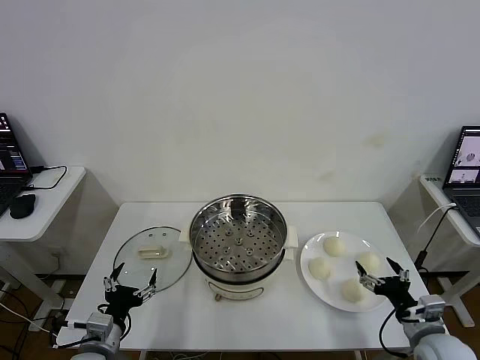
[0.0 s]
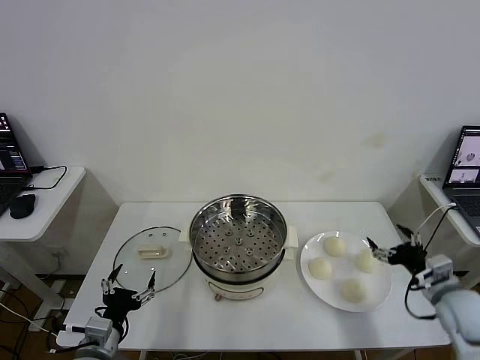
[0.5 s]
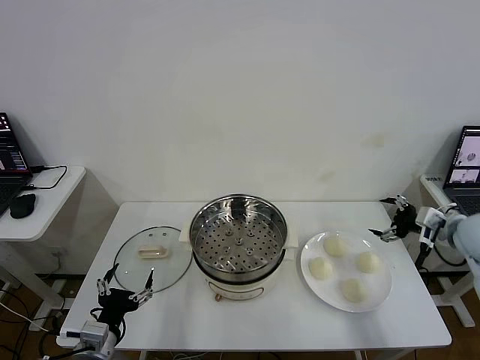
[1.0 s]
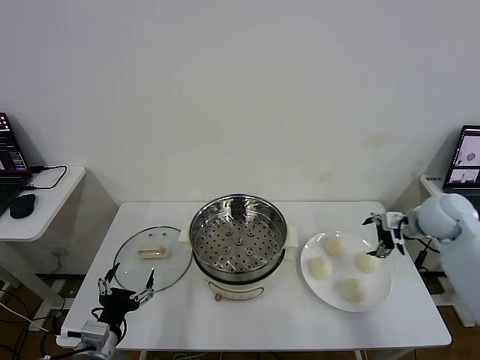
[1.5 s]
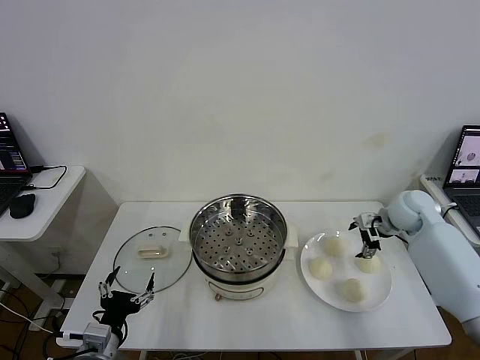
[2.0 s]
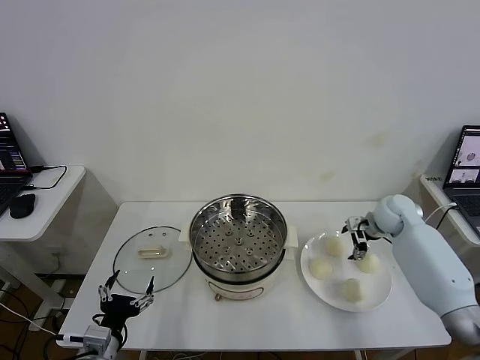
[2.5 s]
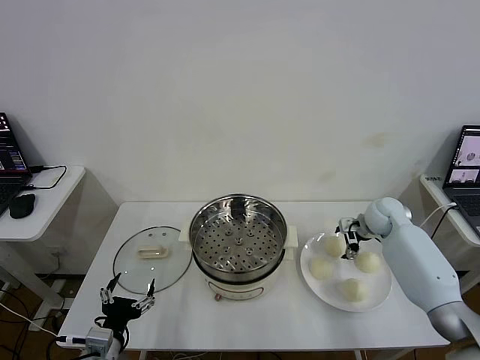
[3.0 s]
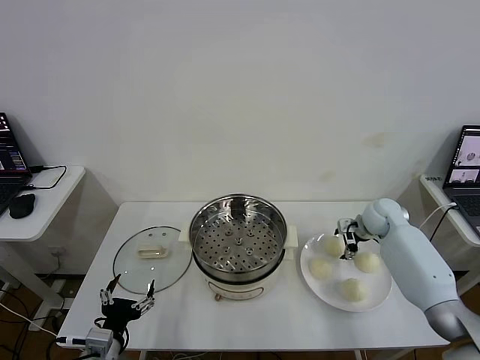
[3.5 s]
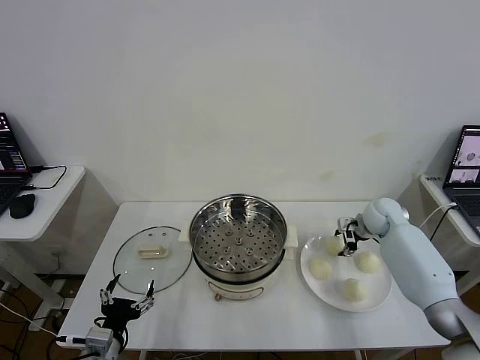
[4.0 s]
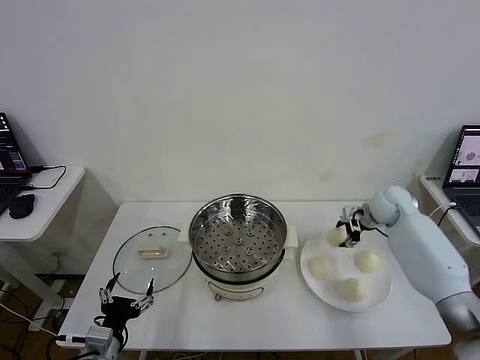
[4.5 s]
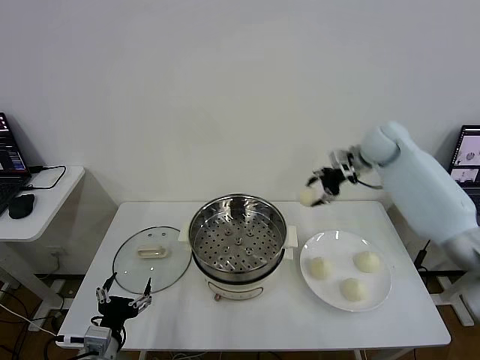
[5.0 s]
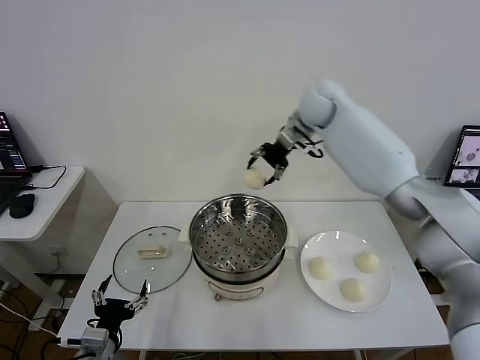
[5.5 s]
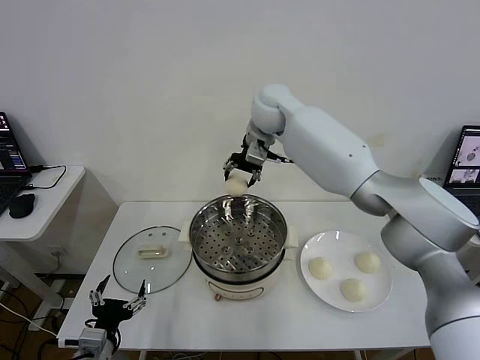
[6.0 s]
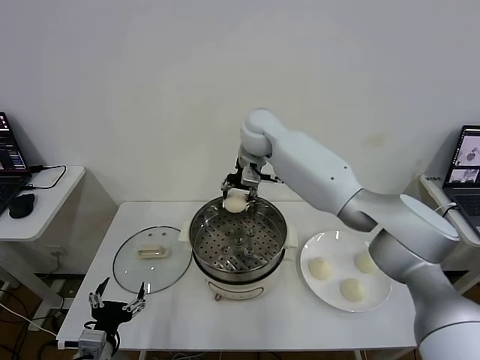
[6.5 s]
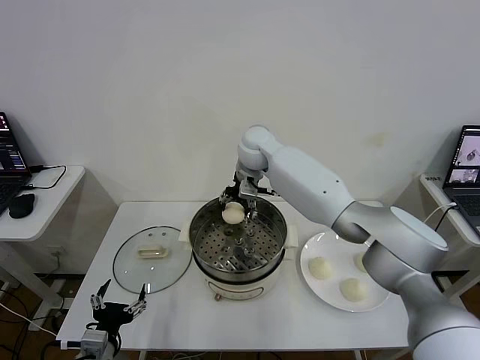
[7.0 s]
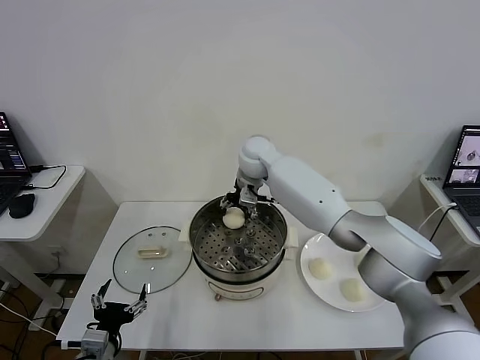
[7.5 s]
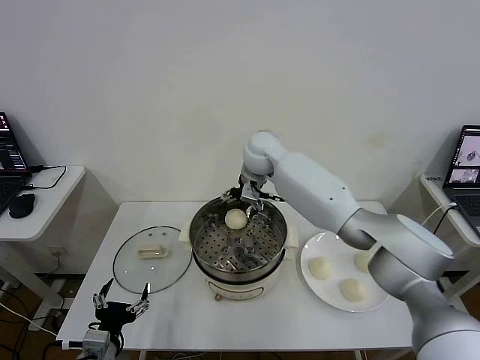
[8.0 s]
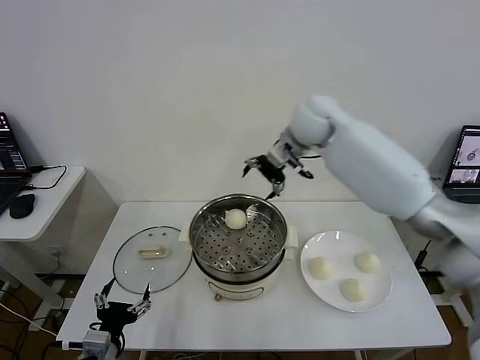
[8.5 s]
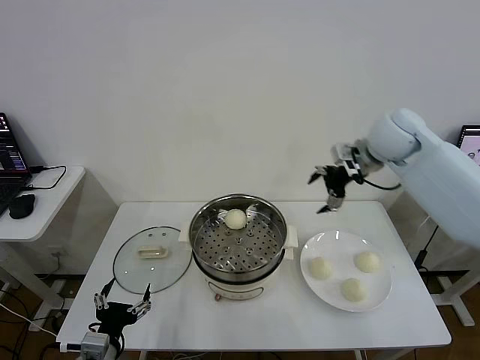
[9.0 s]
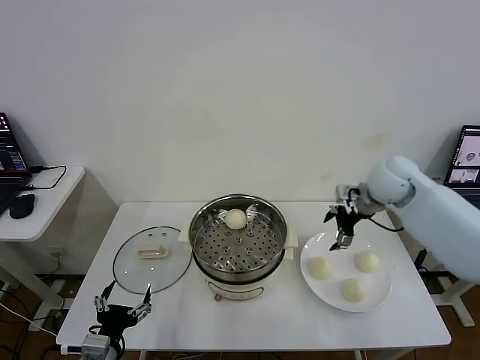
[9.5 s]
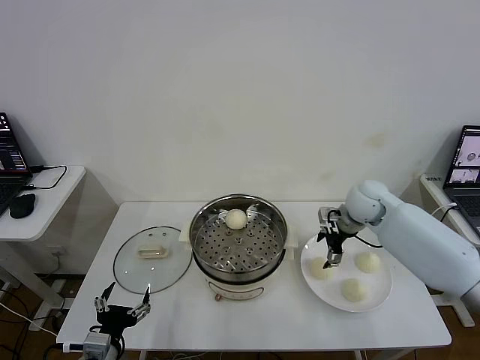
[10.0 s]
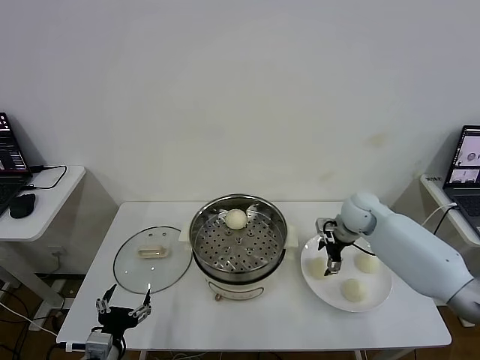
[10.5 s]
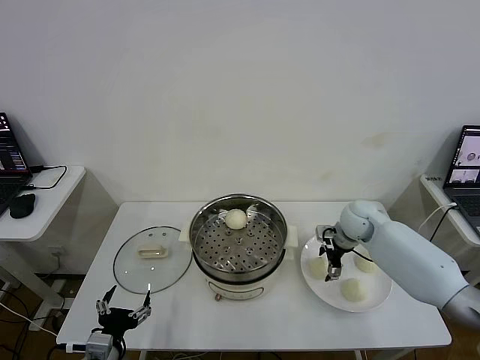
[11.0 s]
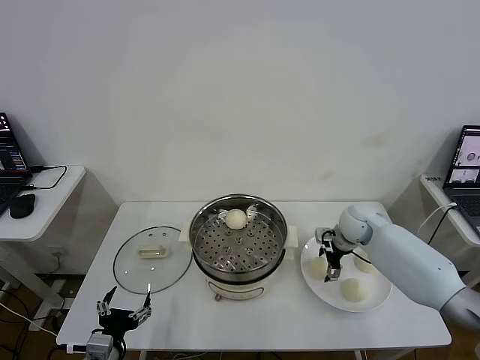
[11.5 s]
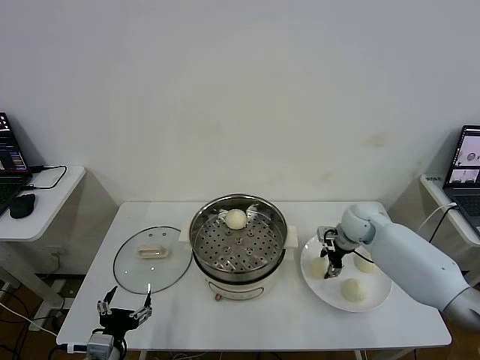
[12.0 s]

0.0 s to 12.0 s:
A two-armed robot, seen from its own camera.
Task of the whole recording: take steamed baozi put them in steamer then cover it.
Step, 0.0 to 3.5 s: Grasp the baozi in the plate with right gripper.
Step, 4.5 to 7.5 s: Place the baozi on the steamer with right gripper.
Step, 8.0 to 12.0 s: Grasp the baozi in the plate with right gripper.
2.0 to 4.0 s: The right gripper moves downward, some 5 cm, and closes up.
4.0 to 6.0 s: The right gripper shifts roughly 40 cm to the left and upward.
6.0 to 8.0 s: The right gripper is displaced downward by approximately 5 cm, and opens its fingers.
8.0 to 10.0 s: The right gripper is displaced to the right and downward by roughly 25 cm.
10.0 to 12.0 s: The right gripper moves downward, about 5 cm, and closes its fingers.

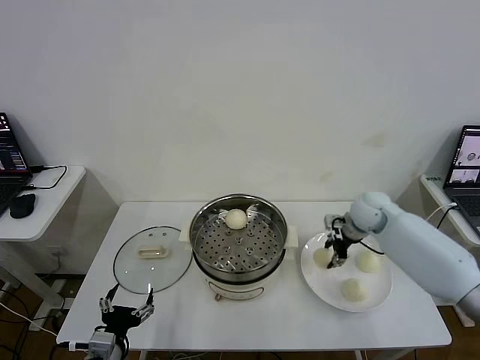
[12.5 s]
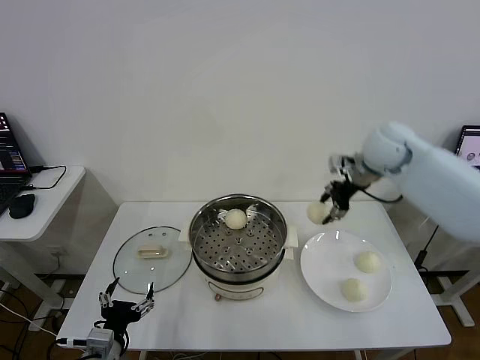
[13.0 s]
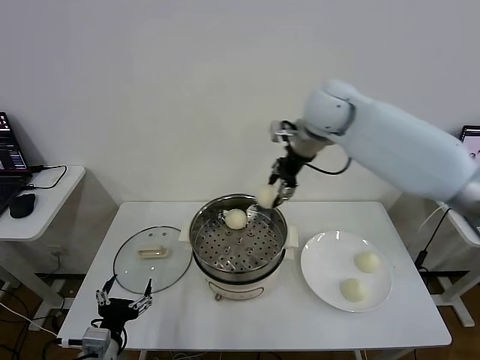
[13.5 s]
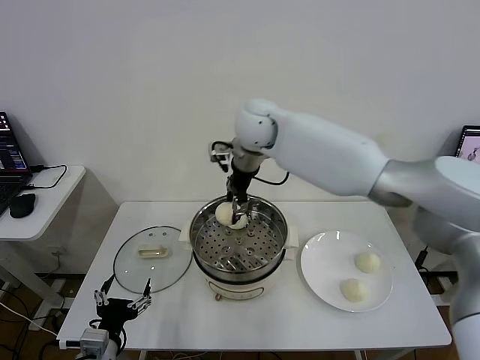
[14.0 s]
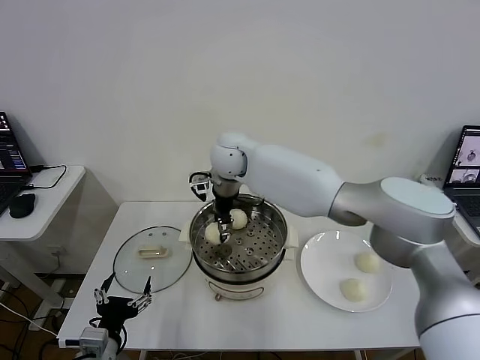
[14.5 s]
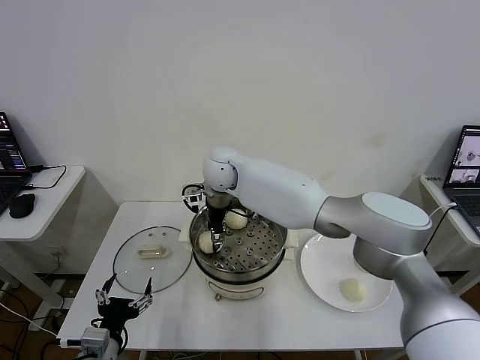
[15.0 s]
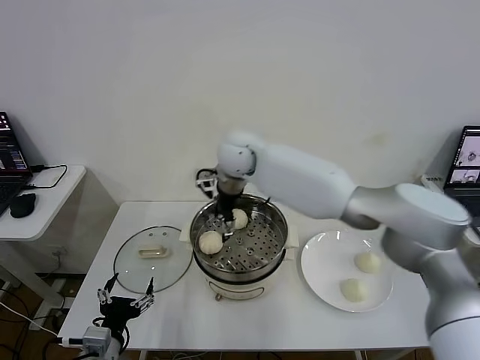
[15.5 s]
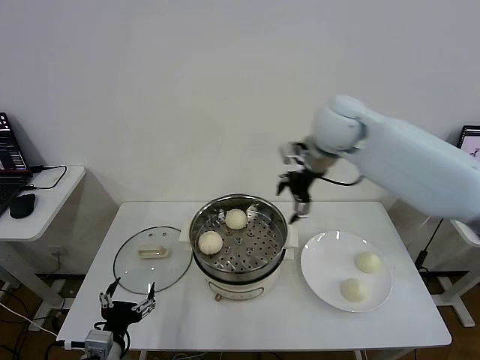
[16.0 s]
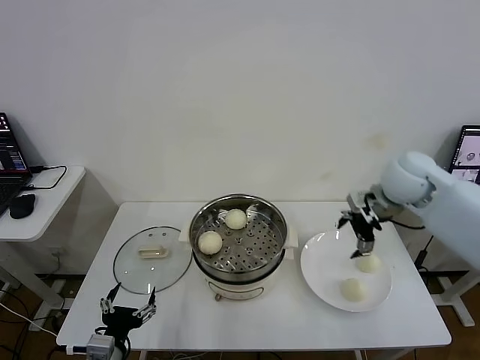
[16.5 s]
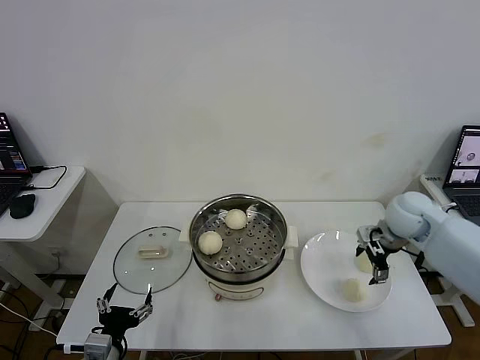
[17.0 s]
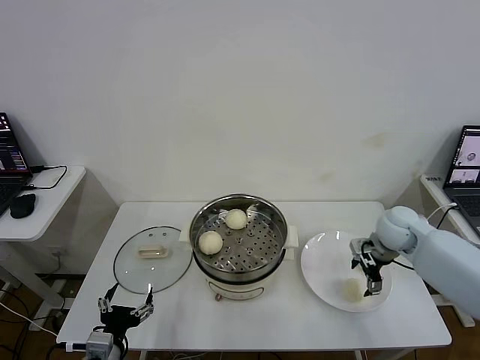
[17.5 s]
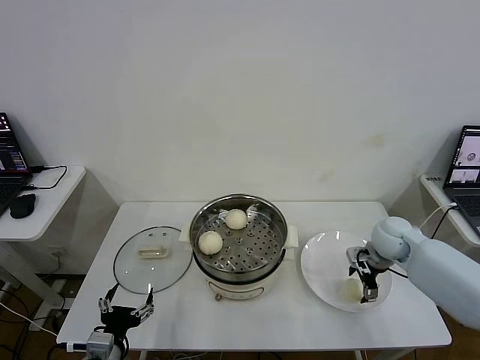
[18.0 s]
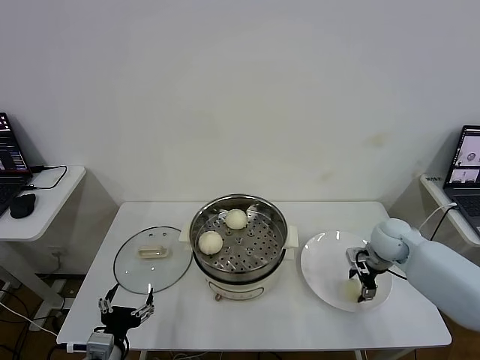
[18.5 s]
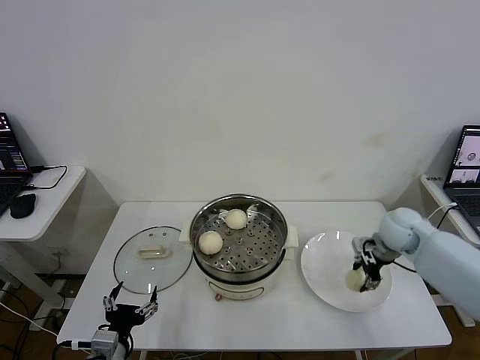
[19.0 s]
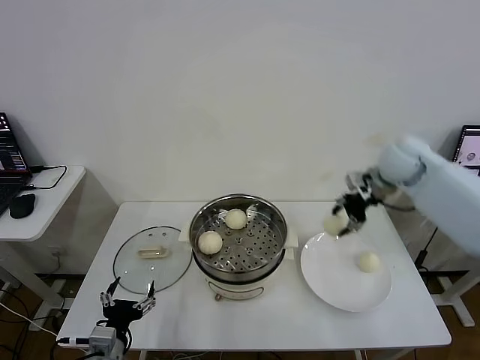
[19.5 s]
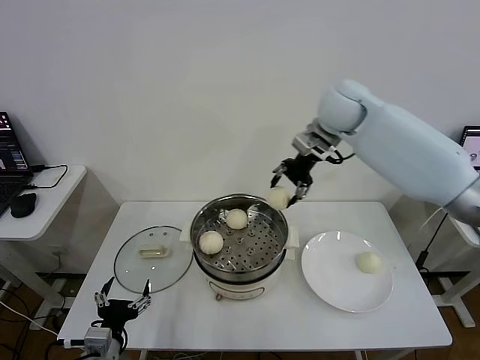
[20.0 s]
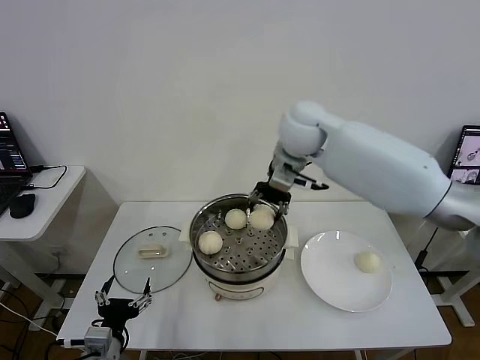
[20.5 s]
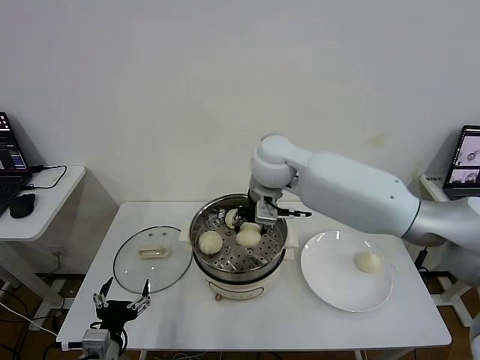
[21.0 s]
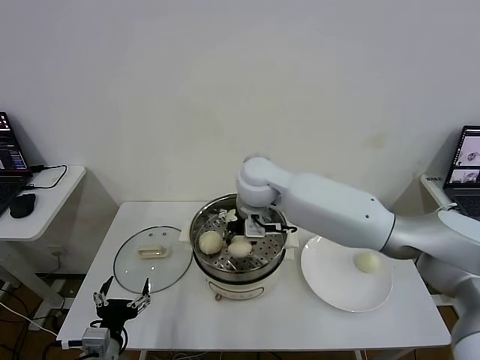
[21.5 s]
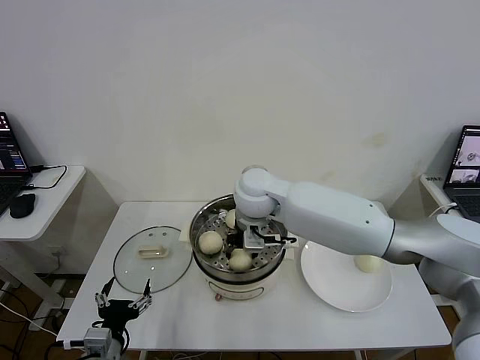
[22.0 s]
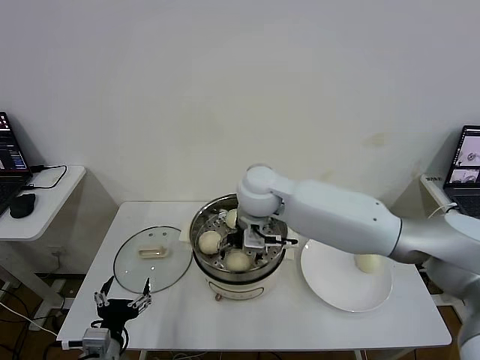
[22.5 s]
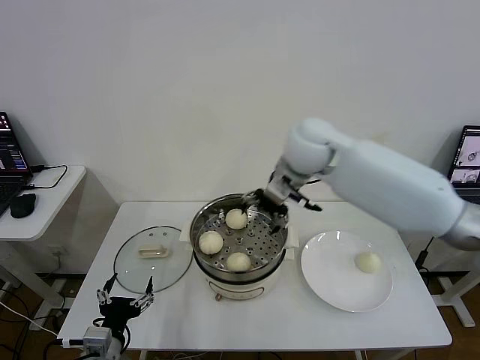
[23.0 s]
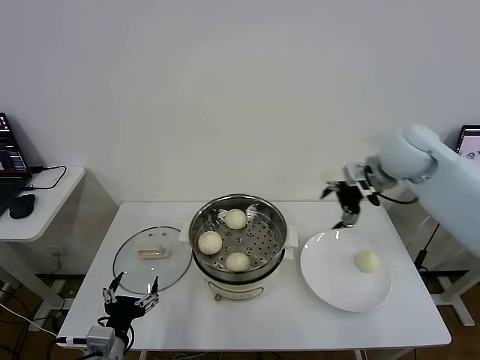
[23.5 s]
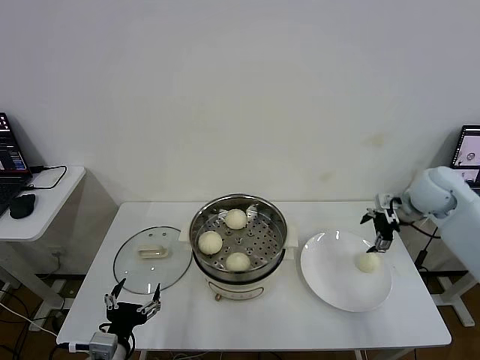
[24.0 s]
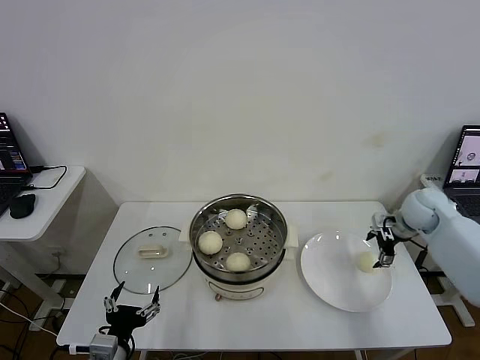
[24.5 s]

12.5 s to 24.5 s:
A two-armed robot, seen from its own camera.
Task of the whole recording: take steamed baozi put them in steamer then cover it.
Step, 12.5 to 15.0 s: Place the baozi on the steamer with right gripper.
Step, 15.5 to 18.5 s: Grasp the baozi in the plate with right gripper.
Step, 19.0 to 22.5 s: Place the baozi on the steamer with right gripper.
12.5 to 14.5 s: The right gripper travels to the left by some 35 cm.
14.5 to 16.5 s: The right gripper goes roughly 35 cm to the right, and opens its fingers.
16.5 to 18.5 s: The right gripper shifts some 15 cm downward, and closes its fingers.
18.5 to 20.5 s: The right gripper heads to the left and upward, covering some 35 cm.
20.5 to 22.5 s: The right gripper is displaced downward, to the left and backward by about 15 cm, and opens its fingers.
22.5 to 24.5 s: The right gripper travels to the right by about 40 cm.

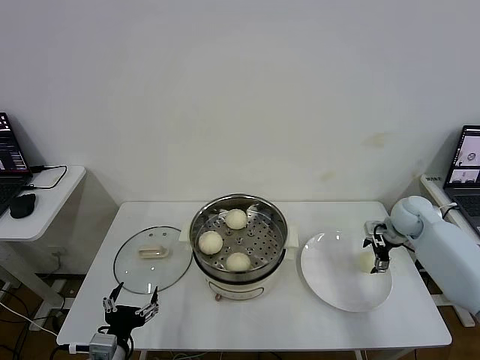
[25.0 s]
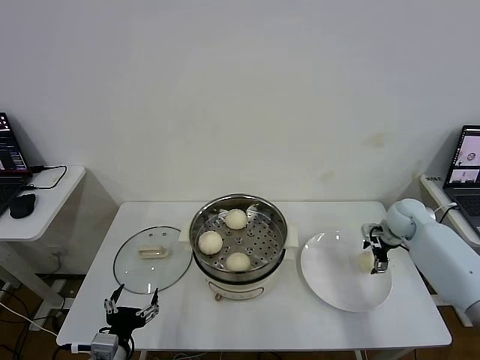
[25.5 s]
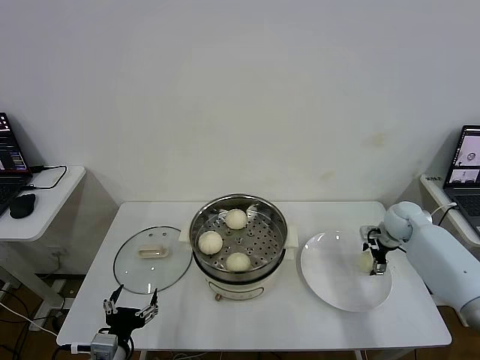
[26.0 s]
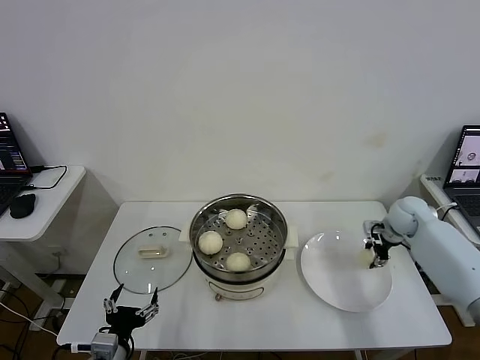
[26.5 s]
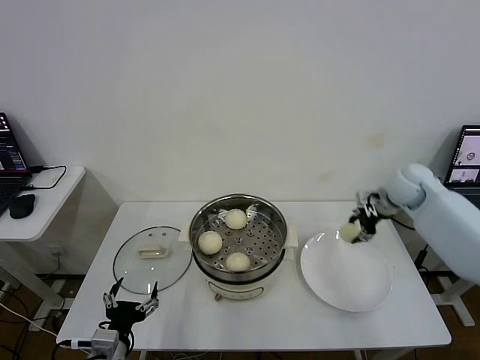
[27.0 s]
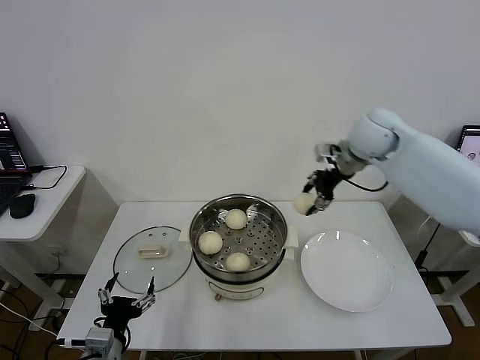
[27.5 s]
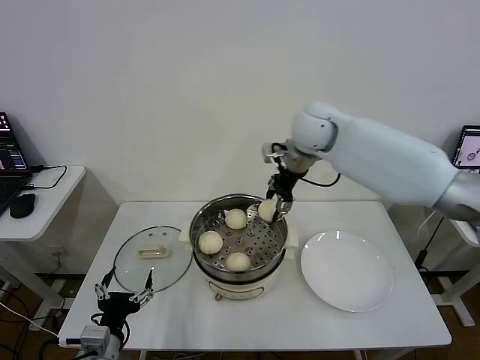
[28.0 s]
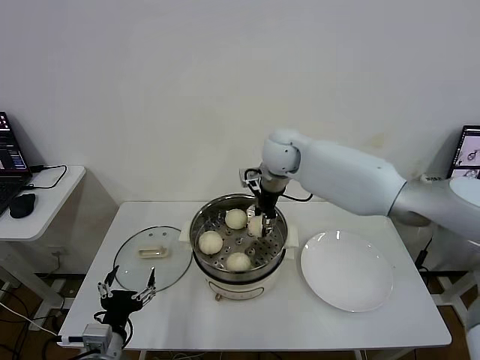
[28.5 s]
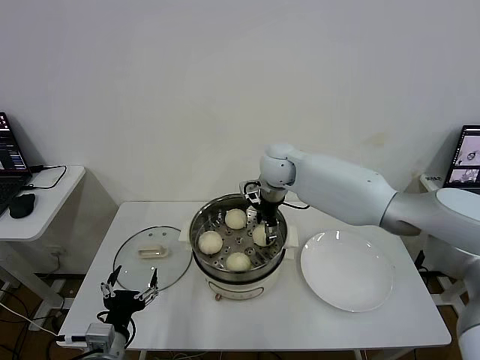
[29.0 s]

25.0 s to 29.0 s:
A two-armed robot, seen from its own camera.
Task of the whole recording: take steamed baozi put them in steamer then cover it.
25.0 to 27.0 s: The right gripper goes about 10 cm upward, and closes its fingers.
27.0 to 29.0 s: The right gripper heads to the left, covering some 30 cm, and opens.
